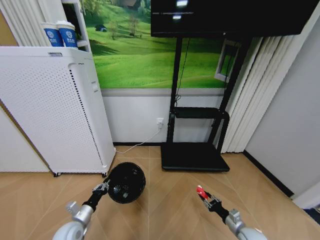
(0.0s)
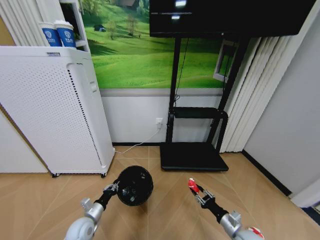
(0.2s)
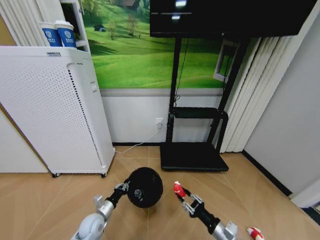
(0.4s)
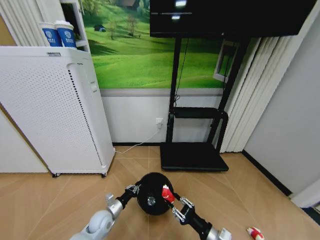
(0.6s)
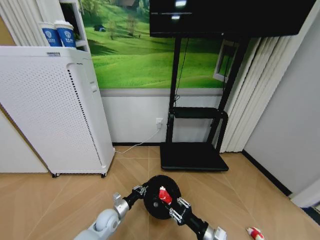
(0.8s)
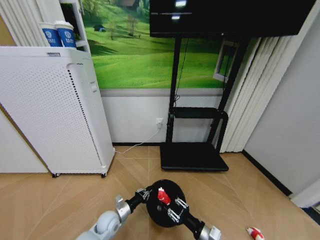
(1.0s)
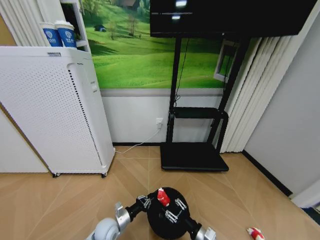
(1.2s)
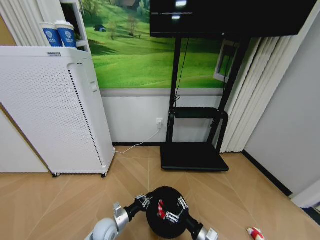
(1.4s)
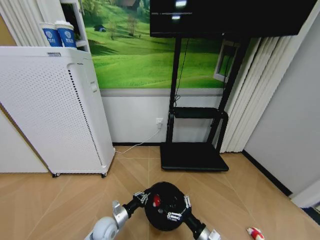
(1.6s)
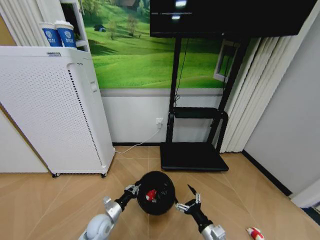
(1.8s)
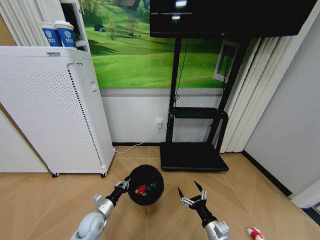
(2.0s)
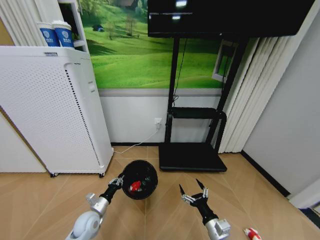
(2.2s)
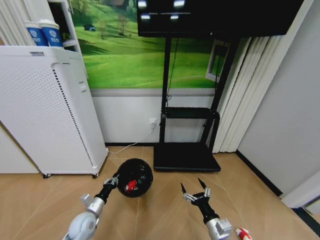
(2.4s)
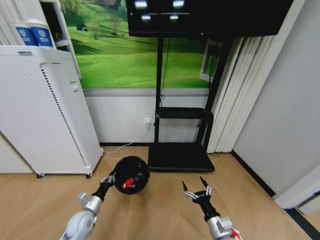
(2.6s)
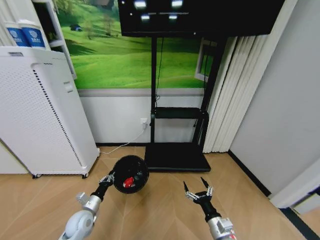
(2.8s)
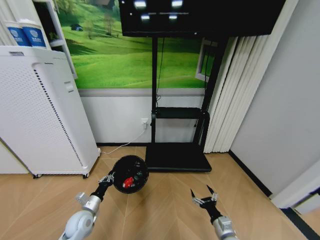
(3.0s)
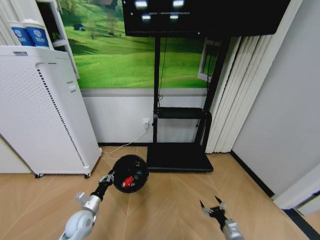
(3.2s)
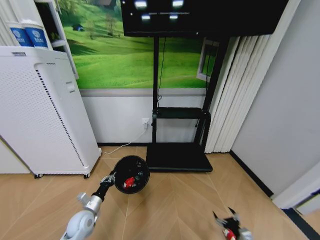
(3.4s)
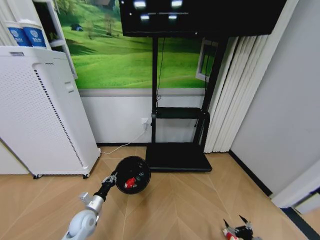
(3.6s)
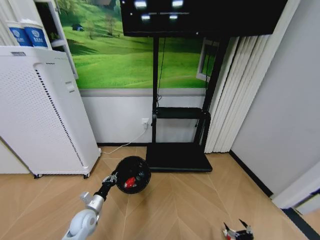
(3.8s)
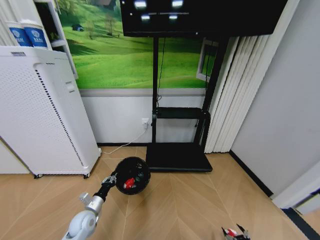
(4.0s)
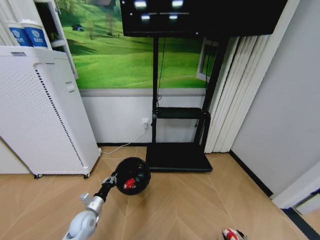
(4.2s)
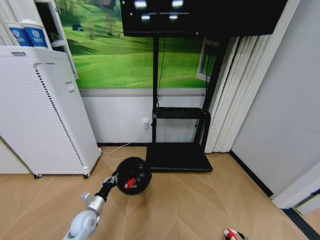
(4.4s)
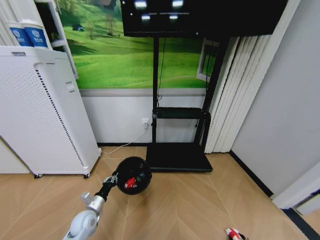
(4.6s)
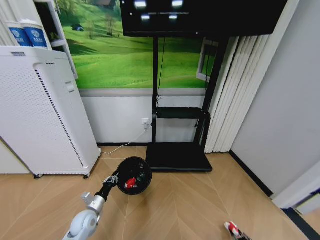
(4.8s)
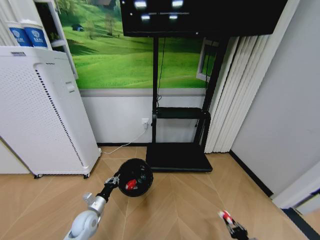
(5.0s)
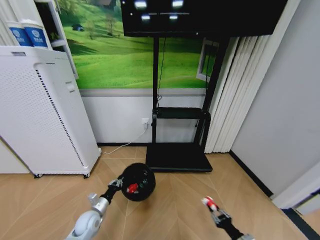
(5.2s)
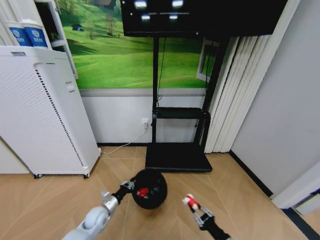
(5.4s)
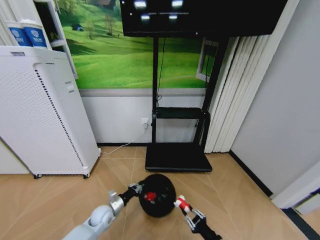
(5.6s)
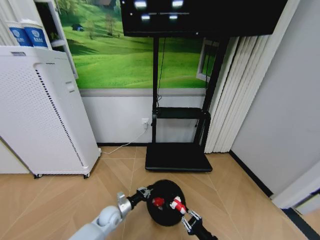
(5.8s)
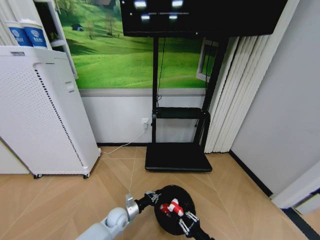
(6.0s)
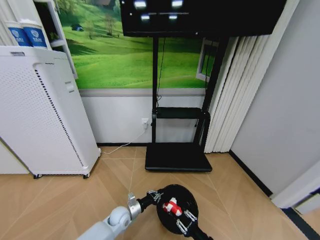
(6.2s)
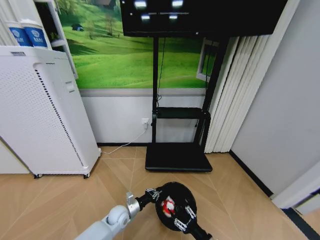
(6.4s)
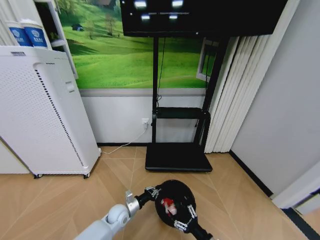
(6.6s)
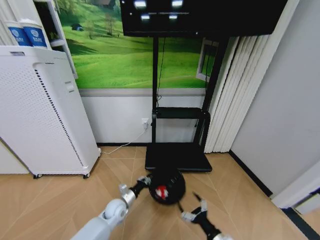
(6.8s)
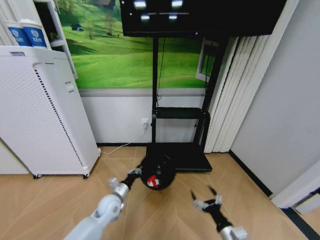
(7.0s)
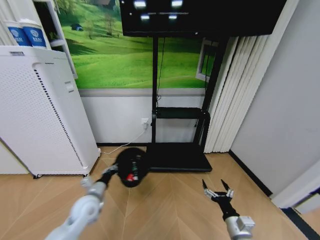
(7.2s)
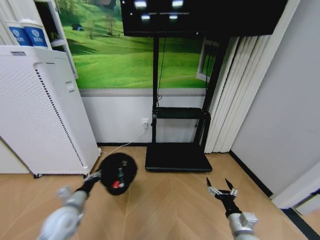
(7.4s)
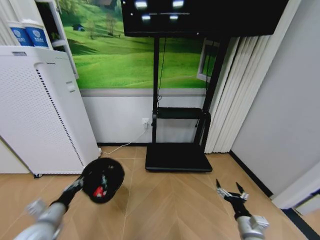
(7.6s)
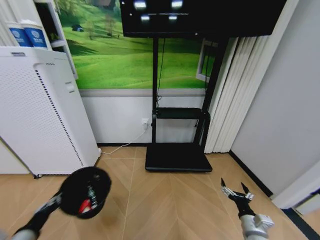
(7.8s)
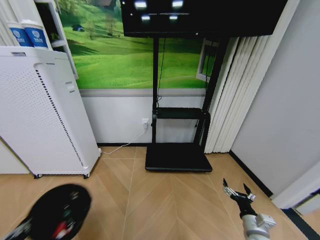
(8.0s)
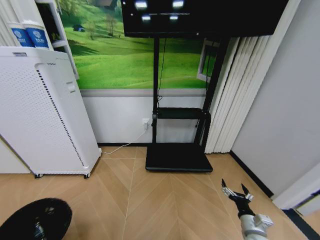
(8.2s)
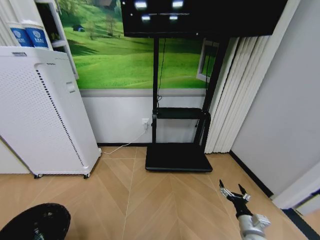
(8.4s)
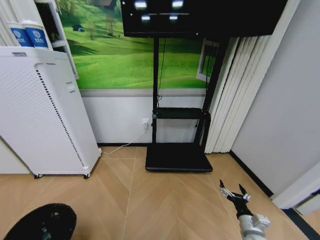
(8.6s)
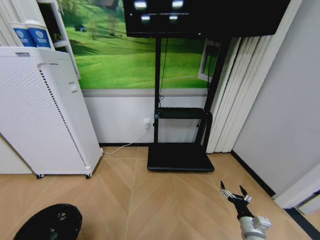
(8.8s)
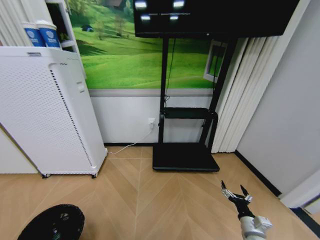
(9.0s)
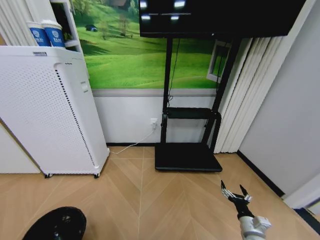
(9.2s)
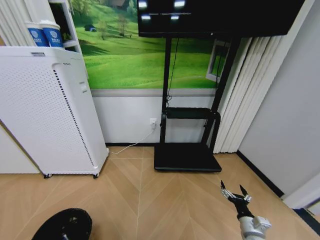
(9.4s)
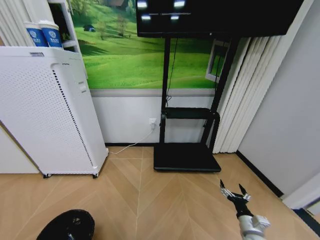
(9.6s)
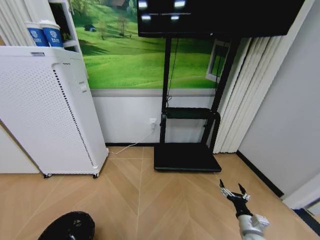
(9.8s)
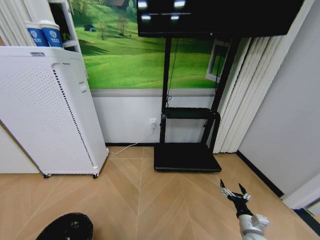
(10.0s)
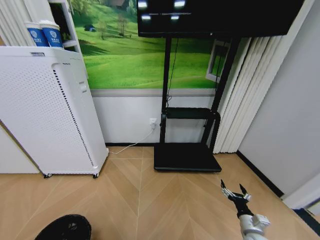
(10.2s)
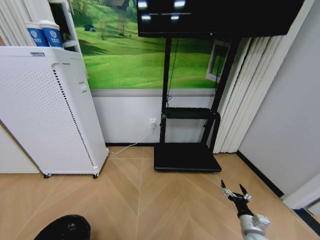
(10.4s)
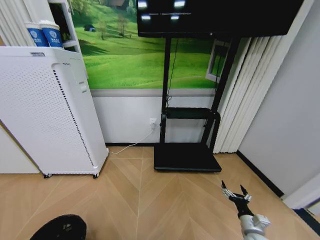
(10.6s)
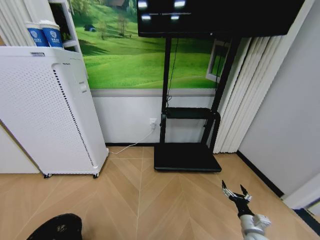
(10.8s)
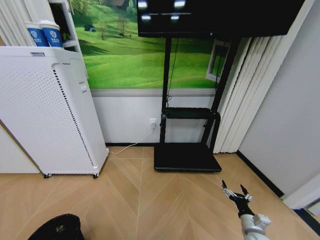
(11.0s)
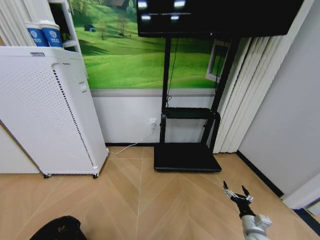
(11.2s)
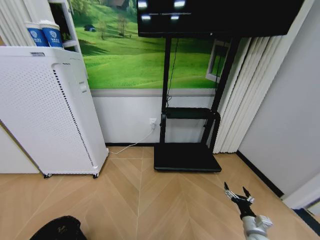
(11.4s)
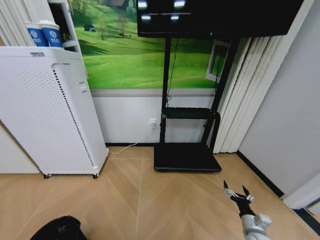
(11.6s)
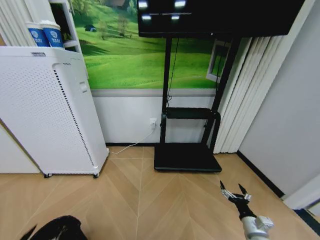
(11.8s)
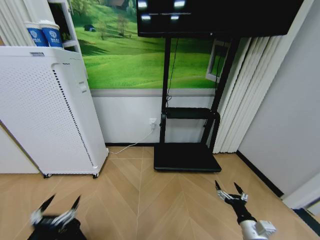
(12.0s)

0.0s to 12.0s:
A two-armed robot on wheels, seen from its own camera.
Task of the whole recording: Pick up the trash bin and place the garbage on the floor into it.
0.0s to 1.6s: The left gripper goes approximately 15 cm to the right and downward. Meanwhile the right gripper travels to the left and upward by about 20 cm, and opens its fingers.
1.6s to 3.0s: The right gripper heads to the right, covering about 5 cm. Meanwhile the left gripper goes some 10 cm to the left and upward.
3.0s to 4.4s: The right gripper heads to the right, downward and backward, covering about 25 cm.
4.4s to 6.0s: The right gripper heads to the left and upward, covering some 30 cm, and closes; the left gripper shifts about 15 cm to the right and downward.
6.0s to 7.6s: The left gripper travels to the left, upward and backward by about 30 cm. The right gripper heads to the right and forward, covering approximately 10 cm, and opens.
7.6s to 9.0s: The right gripper ends up some 5 cm from where it was. The left gripper is displaced backward by roughly 20 cm.
9.0s to 10.4s: The left gripper ends up roughly 5 cm from where it was.
10.4s to 12.0s: The right gripper is displaced upward by roughly 5 cm. Meanwhile the left gripper travels upward and forward by about 15 cm, and opens.

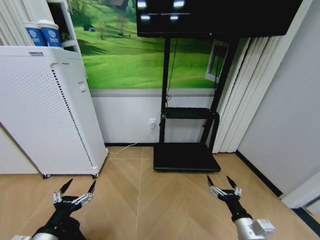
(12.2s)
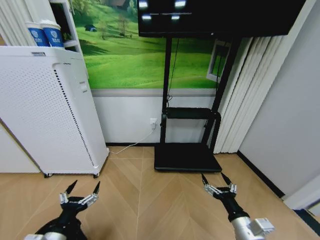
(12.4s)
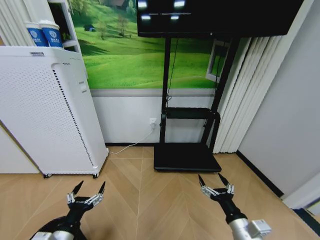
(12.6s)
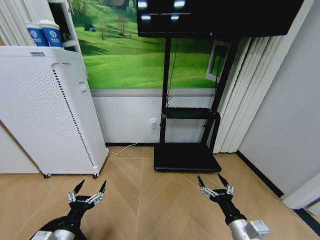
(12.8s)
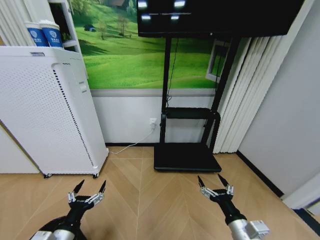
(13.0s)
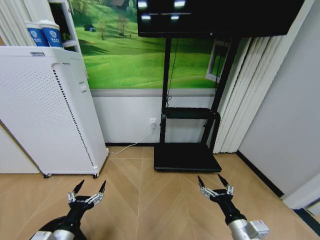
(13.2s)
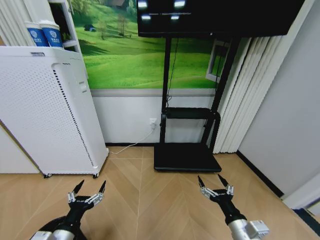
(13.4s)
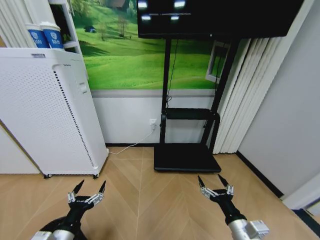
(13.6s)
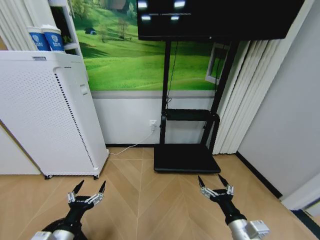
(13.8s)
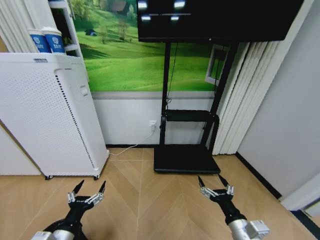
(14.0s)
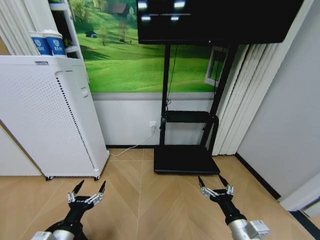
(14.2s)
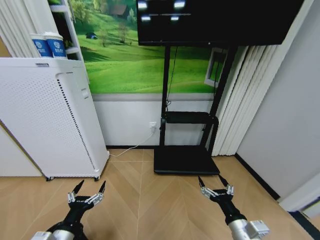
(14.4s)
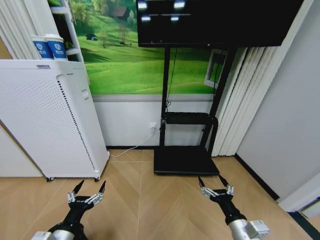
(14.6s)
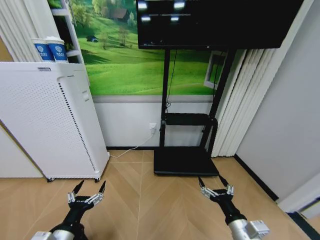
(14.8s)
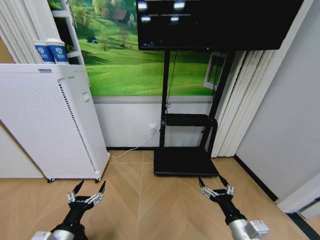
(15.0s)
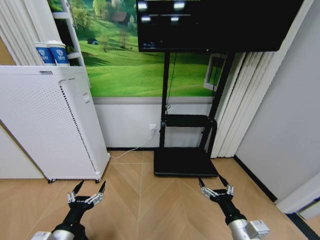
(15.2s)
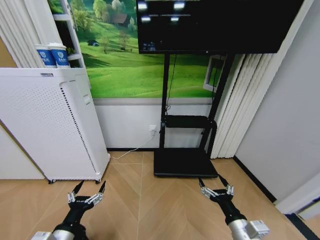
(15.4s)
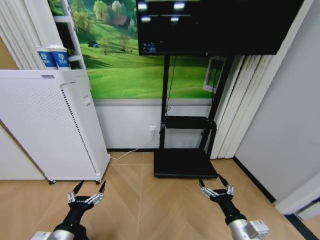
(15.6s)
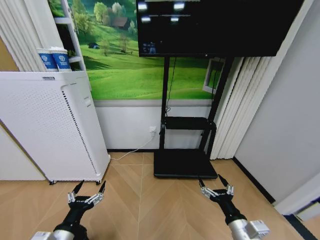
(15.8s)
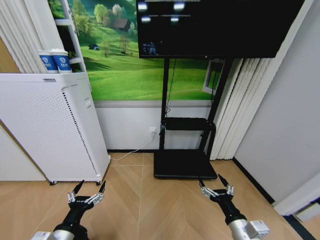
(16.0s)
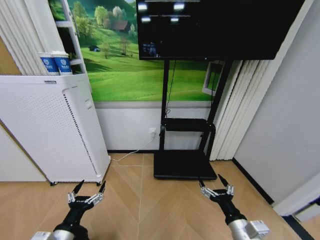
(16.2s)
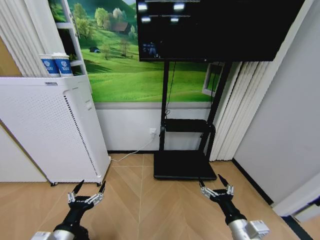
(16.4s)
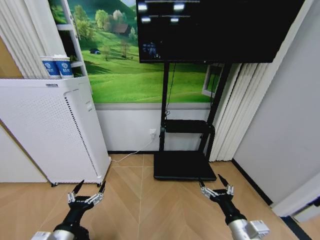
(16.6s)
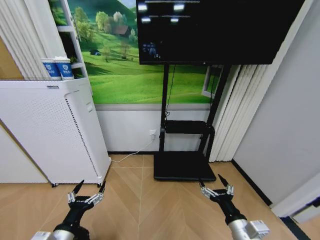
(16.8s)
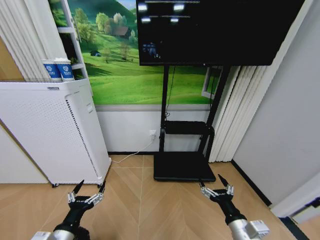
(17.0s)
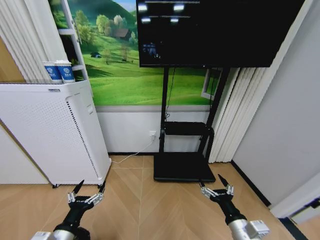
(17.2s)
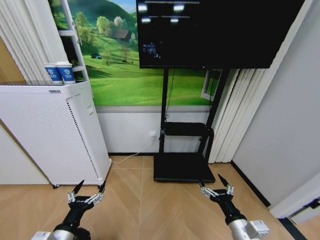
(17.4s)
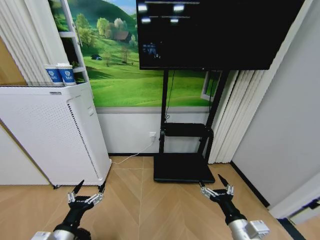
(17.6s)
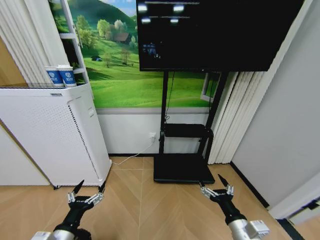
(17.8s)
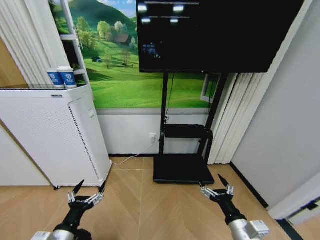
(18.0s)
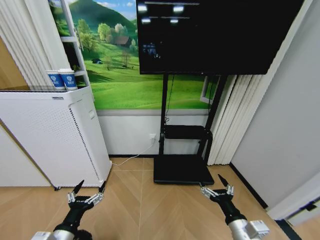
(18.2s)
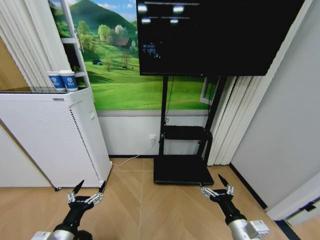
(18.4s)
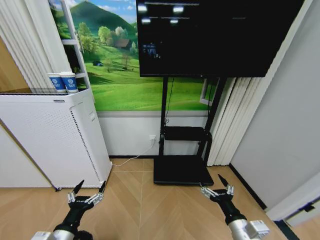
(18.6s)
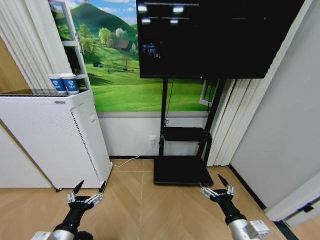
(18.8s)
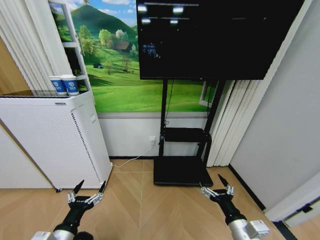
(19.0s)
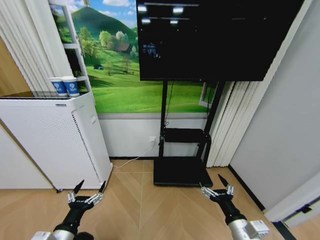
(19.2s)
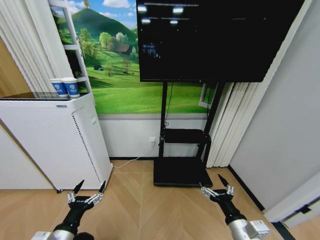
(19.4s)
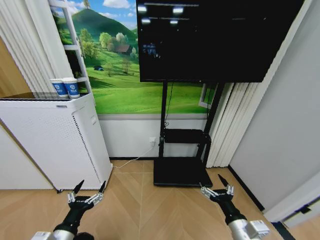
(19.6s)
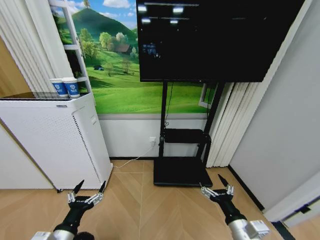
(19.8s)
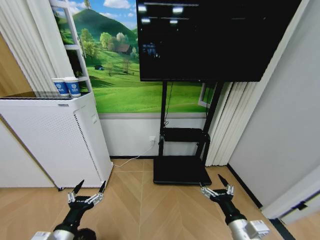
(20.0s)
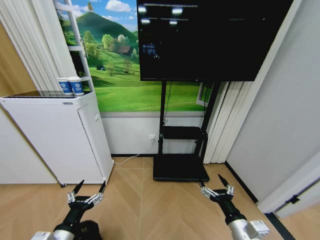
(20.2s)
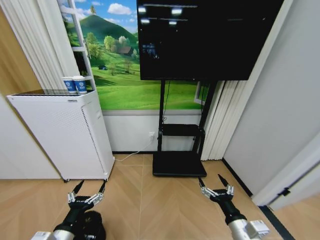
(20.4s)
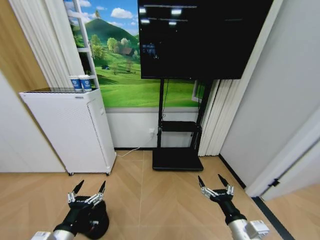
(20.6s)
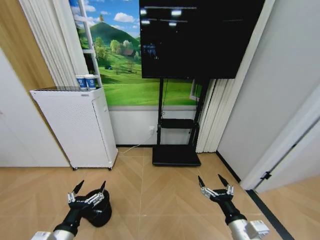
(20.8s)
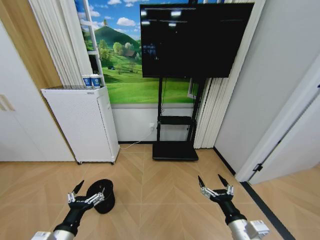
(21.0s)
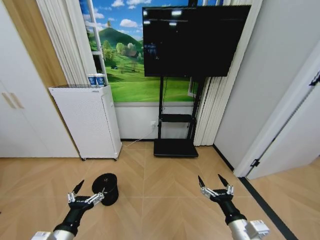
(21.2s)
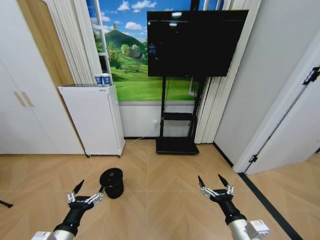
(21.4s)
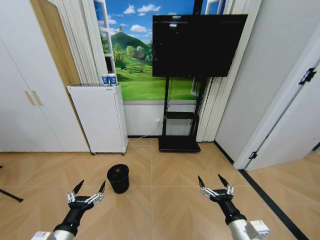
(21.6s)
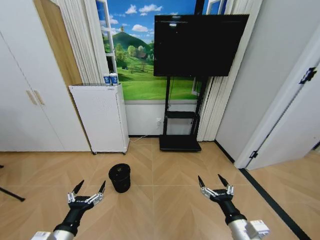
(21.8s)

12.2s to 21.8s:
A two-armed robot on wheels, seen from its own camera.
Task of the whole recording: Pick up the trash bin and place the garbage on the floor into it.
12.2s to 13.8s: The grippers move only a little.
13.8s to 18.6s: Both grippers stay about where they are.

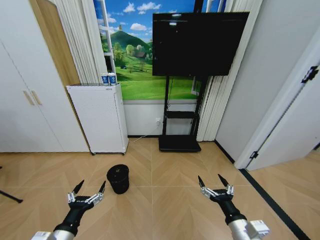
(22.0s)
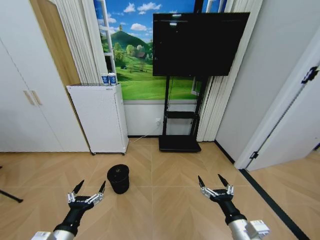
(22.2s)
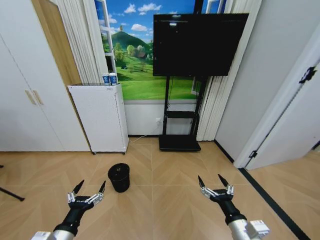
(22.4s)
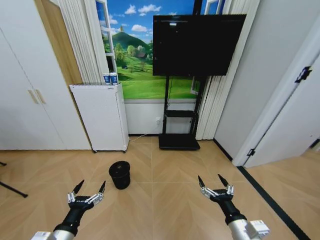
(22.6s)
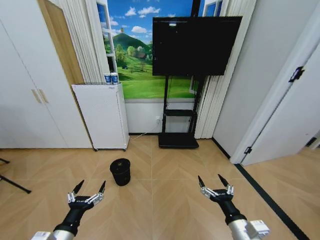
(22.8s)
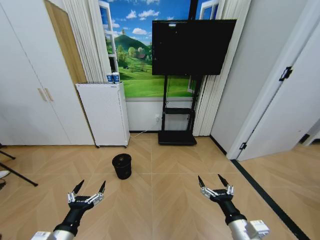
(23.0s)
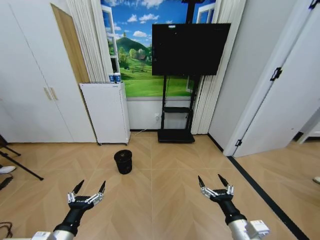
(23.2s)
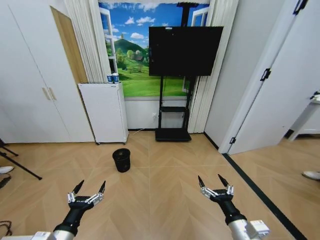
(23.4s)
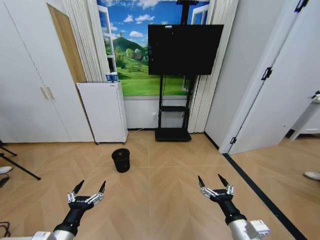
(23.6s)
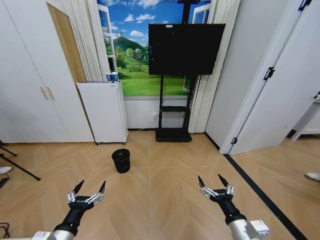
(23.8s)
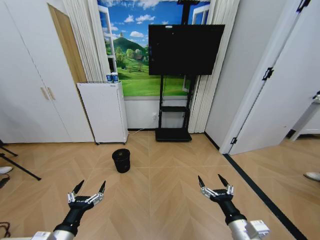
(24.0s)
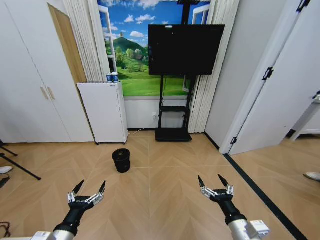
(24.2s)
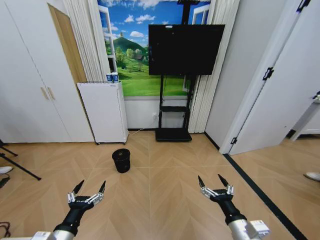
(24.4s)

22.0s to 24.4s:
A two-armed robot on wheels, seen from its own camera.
Task of the whole recording: Pick up the trash bin and place the garbage on the floor into it.
23.2s to 24.4s: The two grippers keep their place.
